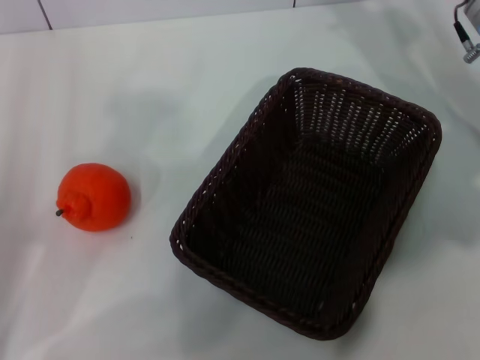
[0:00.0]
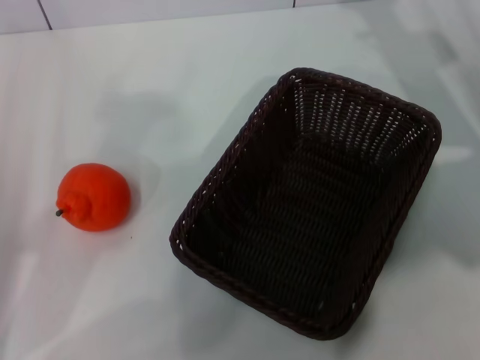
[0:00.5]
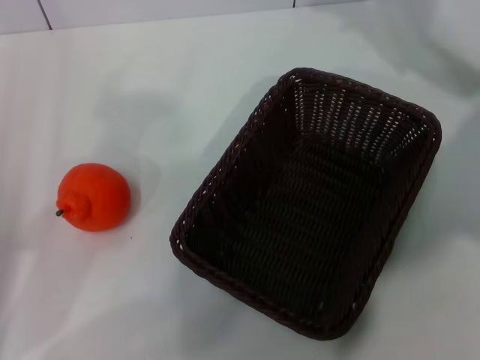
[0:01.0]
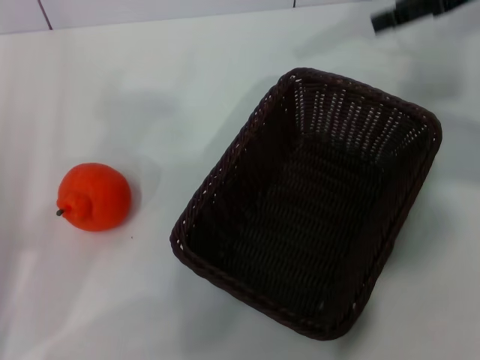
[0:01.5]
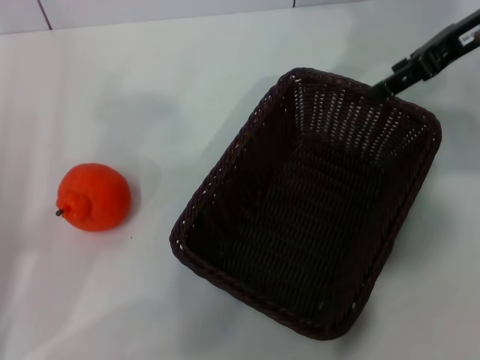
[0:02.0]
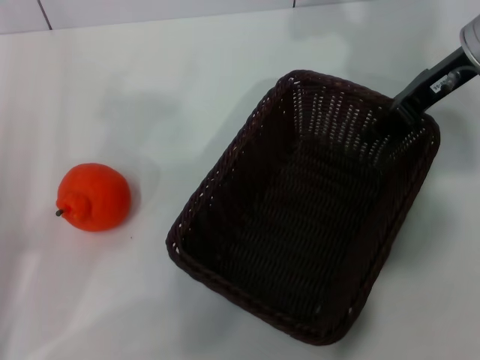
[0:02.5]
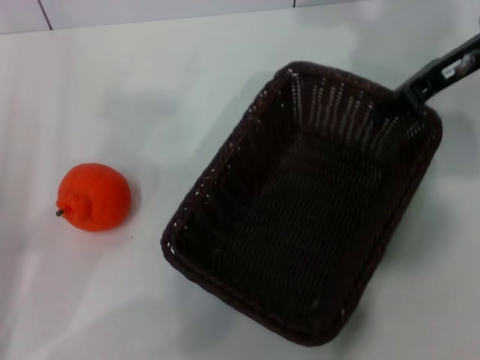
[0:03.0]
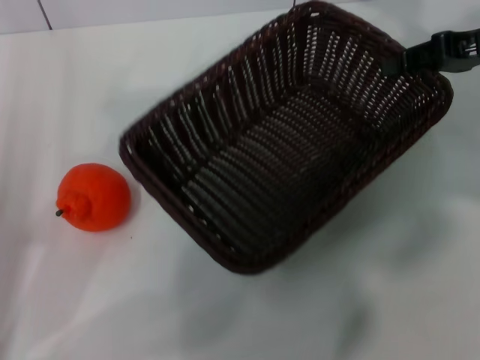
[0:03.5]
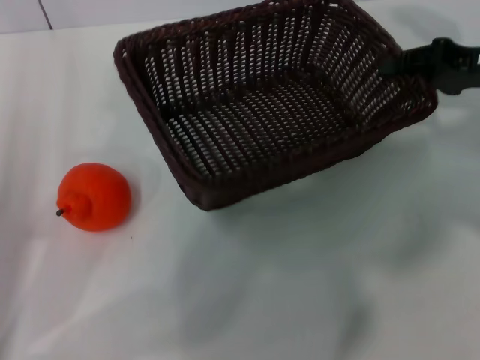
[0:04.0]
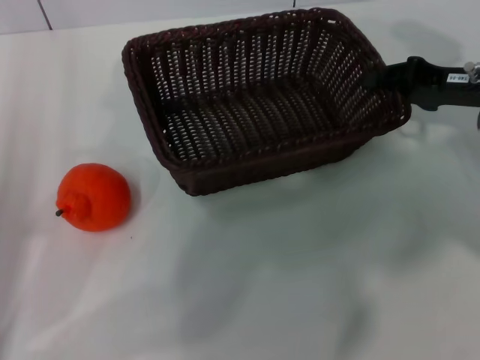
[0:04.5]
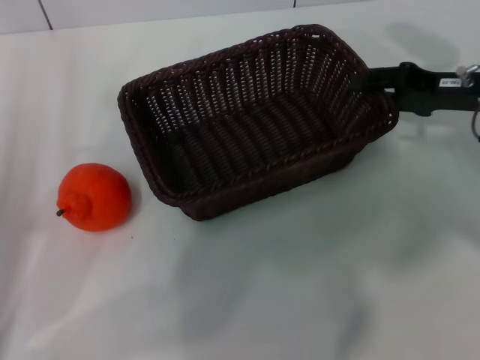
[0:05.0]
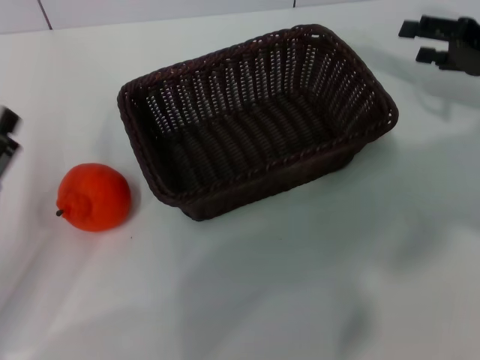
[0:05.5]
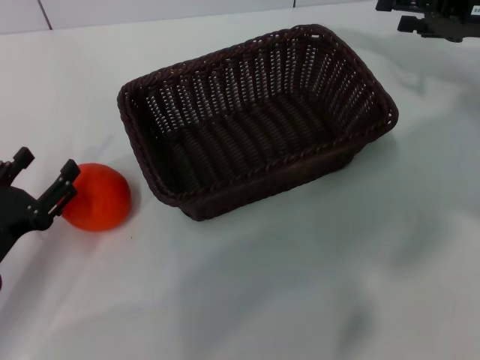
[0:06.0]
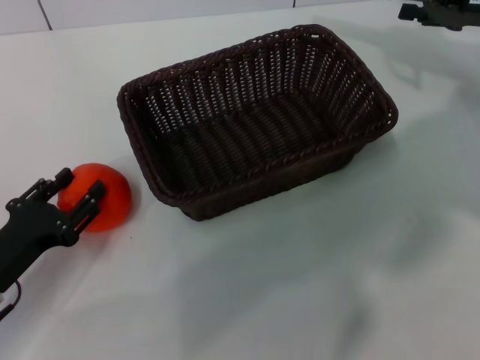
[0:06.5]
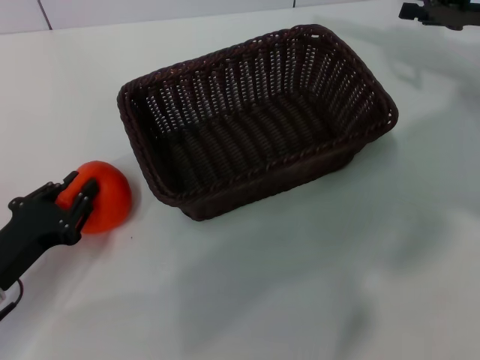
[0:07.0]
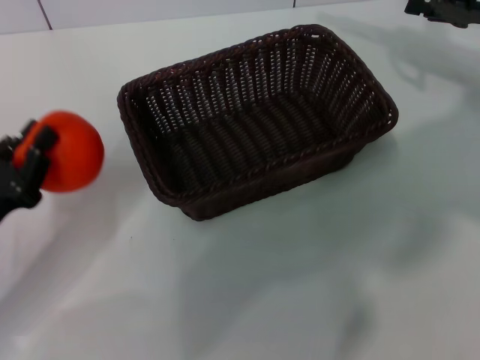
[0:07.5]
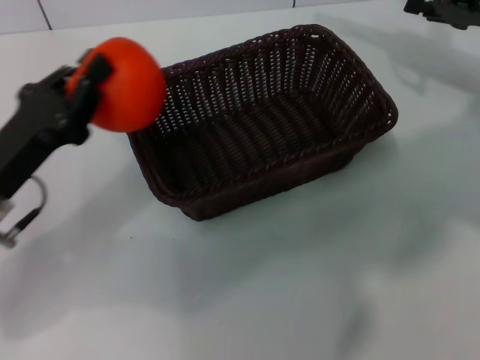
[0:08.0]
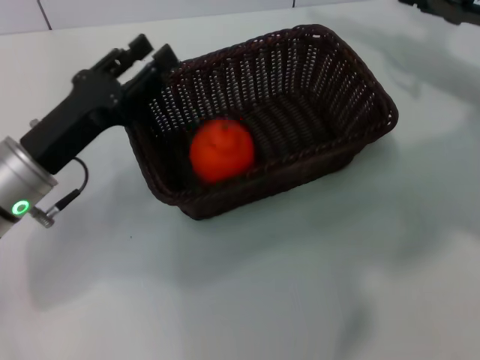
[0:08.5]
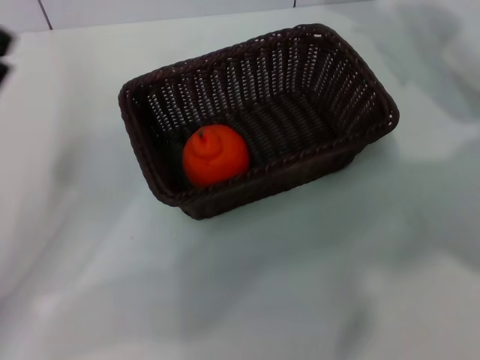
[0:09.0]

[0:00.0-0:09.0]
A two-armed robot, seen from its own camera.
Task of the whole recording: the right gripper pick up the black basket and place it horizontally in the middle of the table, the left gripper pick up the orange and place it into the black basket.
Step, 0:00.0 to 0:02.5: Pick up the dark basket with the right gripper.
Step, 0:03.5 to 0:04.5: Place the dark basket in the center of view with the right gripper.
Step, 0:05.0 to 0:07.0: Pick up the orange with the left gripper.
Step, 0:07.5 to 0:08.0: Place the orange into the dark basket with the left gripper.
0:00.0 to 0:02.0: The right gripper is displaced upward by approximately 10 cm.
0:02.0 to 0:04.5: The right gripper goes roughly 10 cm downward, and closes its fingers.
0:04.5 to 0:07.0: The left gripper heads downward, covering some 5 cm, and closes up. The right gripper ends up approximately 5 cm from where it was, and opens.
0:07.0 to 0:09.0: The left gripper heads upward, covering some 5 cm, goes forward and returns, roughly 10 cm each way, and opens.

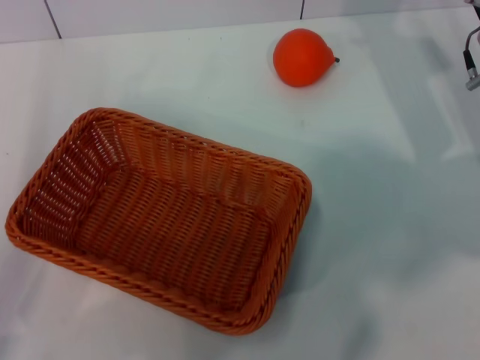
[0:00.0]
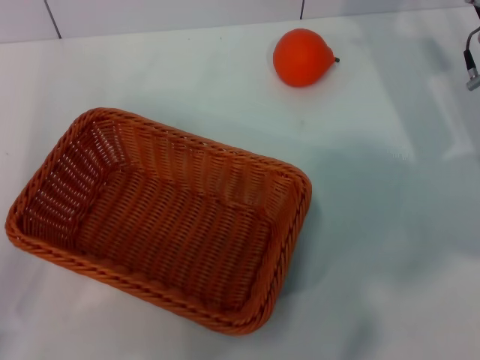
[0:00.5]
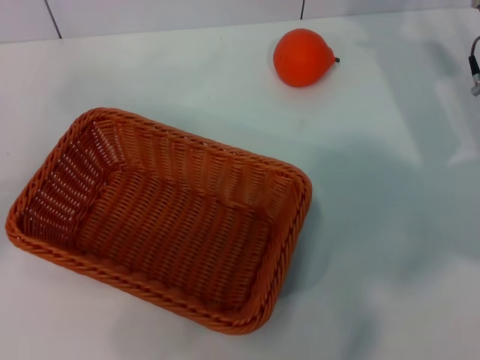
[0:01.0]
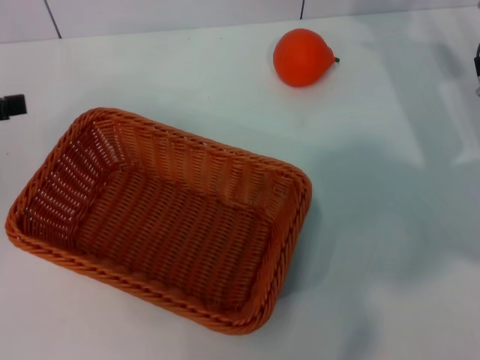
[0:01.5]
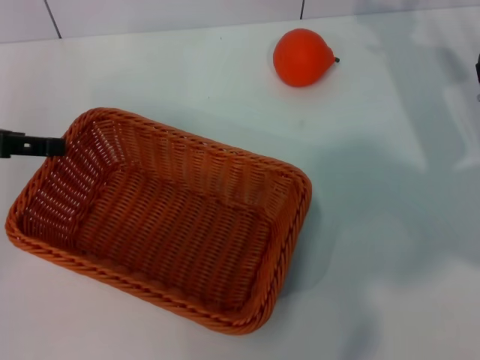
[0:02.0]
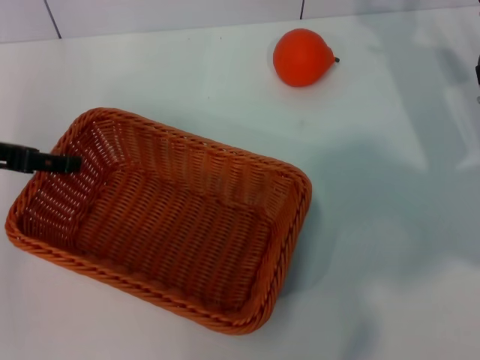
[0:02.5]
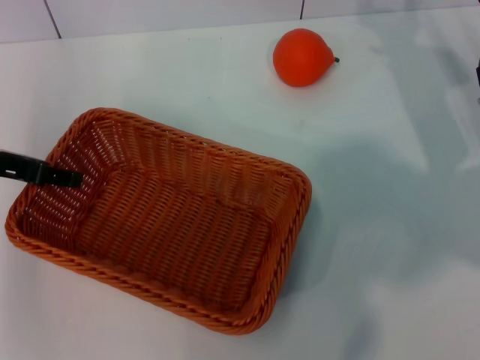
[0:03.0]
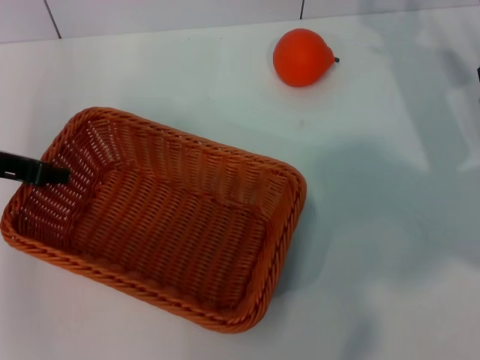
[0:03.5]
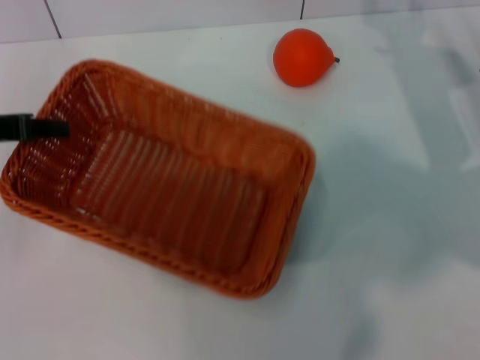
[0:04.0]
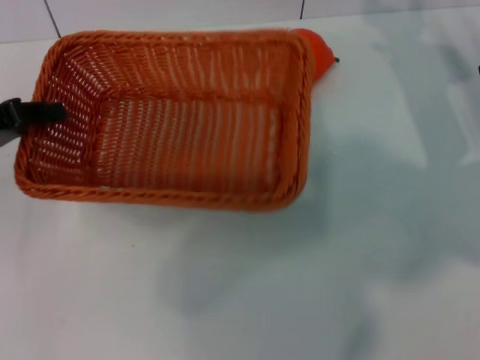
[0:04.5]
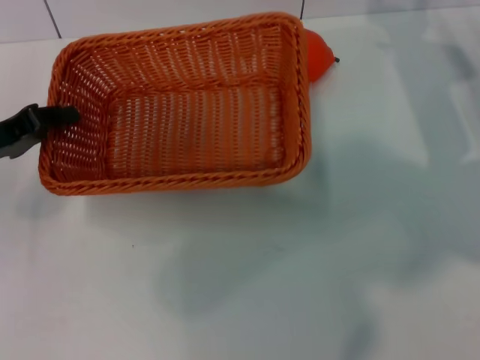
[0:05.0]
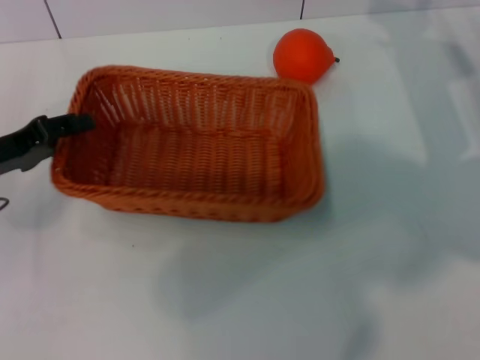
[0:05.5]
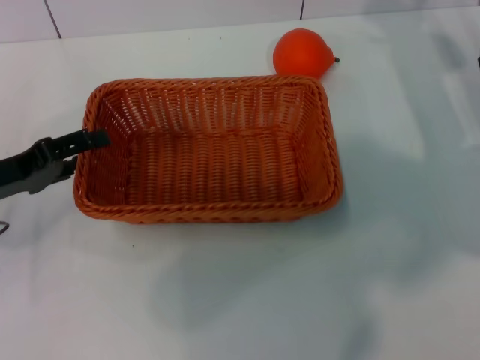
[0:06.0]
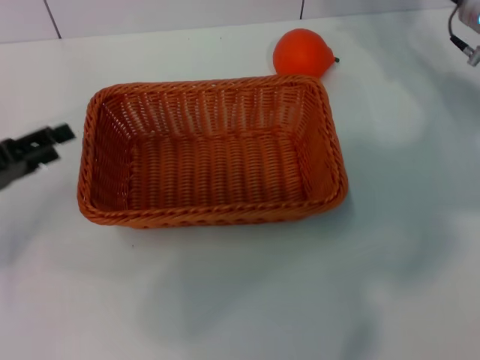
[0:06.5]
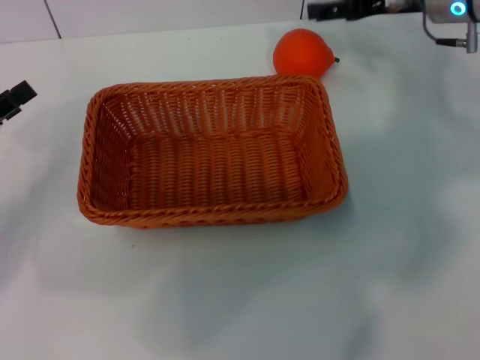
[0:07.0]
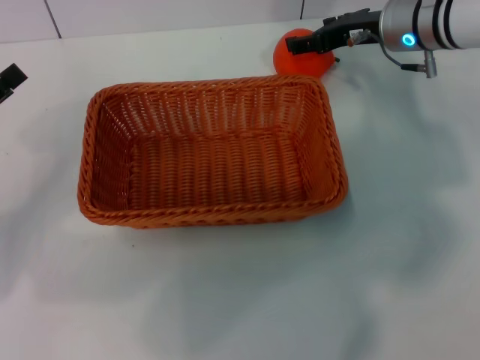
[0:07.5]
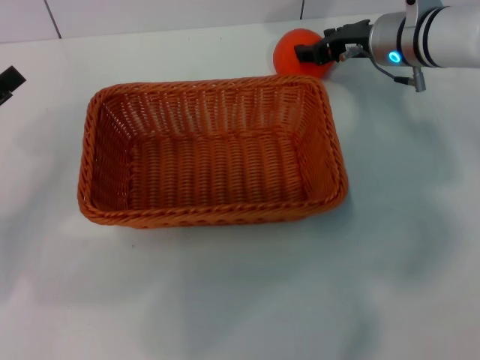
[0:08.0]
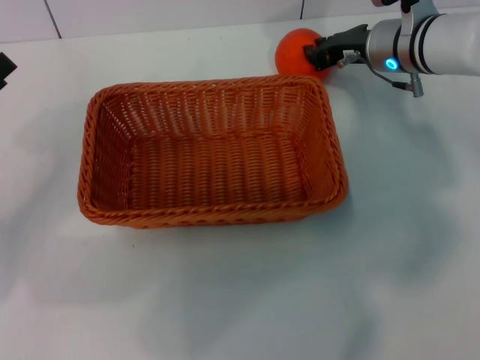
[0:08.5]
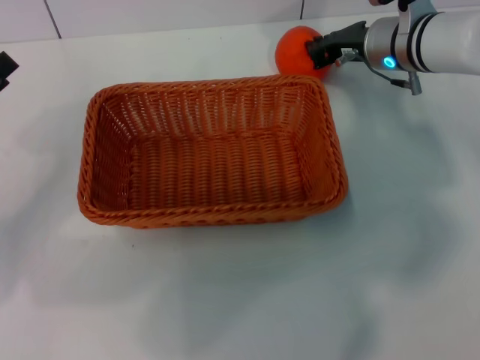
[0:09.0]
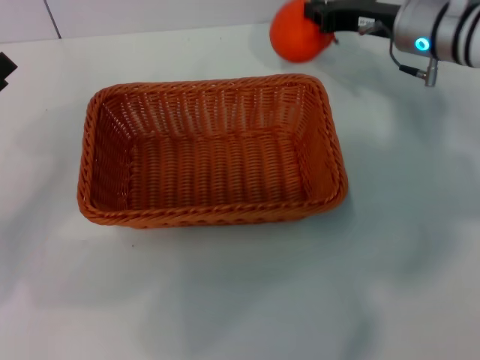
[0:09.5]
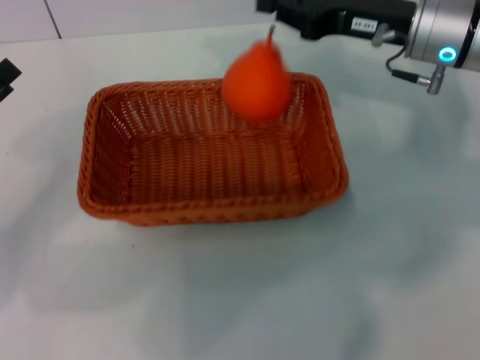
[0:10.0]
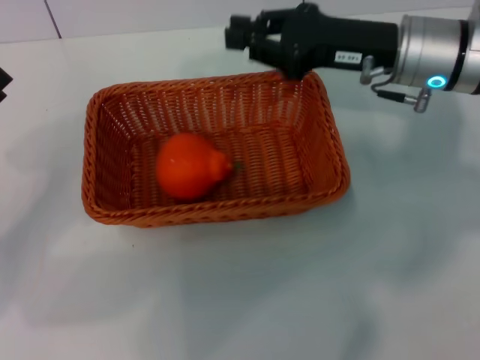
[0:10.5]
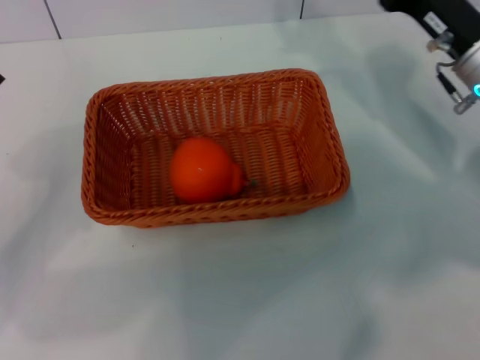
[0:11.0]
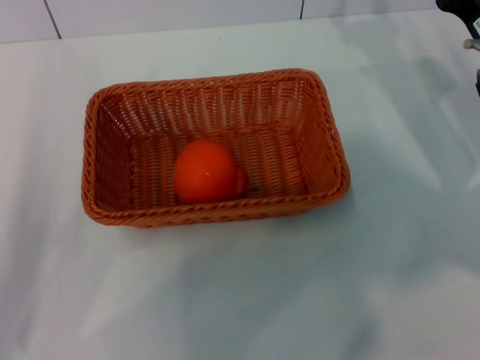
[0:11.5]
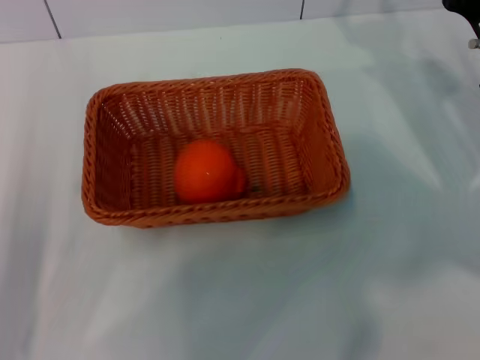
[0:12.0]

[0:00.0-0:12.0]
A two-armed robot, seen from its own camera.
Task of the whole recording: the left gripper pick up the yellow basket and place it horizontally in the middle of the table, the right gripper pick up the orange and place it into the yellow basket.
Step, 0:00.0 to 0:04.0: Pick up the light basket with the left gripper.
Step, 0:04.5 to 0:06.0: Place the light basket in the center of view with the left gripper.
Step, 0:07.0 to 0:09.5: Pick up the orange with the right gripper.
Step, 0:10.0 to 0:10.5: Place the orange into the light basket with the right gripper.
0:00.0 to 0:02.0: The left gripper moves upward and forward, approximately 15 cm.
0:02.0 to 0:04.0: The left gripper closes its fingers.
0:04.0 to 0:06.0: The left gripper travels downward by approximately 10 cm, and opens its fingers.
0:06.0 to 0:08.0: The right gripper moves to the left and forward, roughly 10 cm.
0:08.0 to 0:10.0: The right gripper shifts roughly 5 cm backward, and closes its fingers.
0:10.0 to 0:12.0: The right gripper travels to the right and downward by some 10 cm, and opens up. The left gripper moves backward and to the right, approximately 10 cm.
